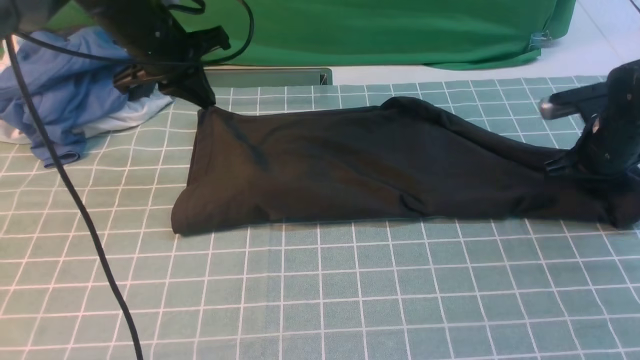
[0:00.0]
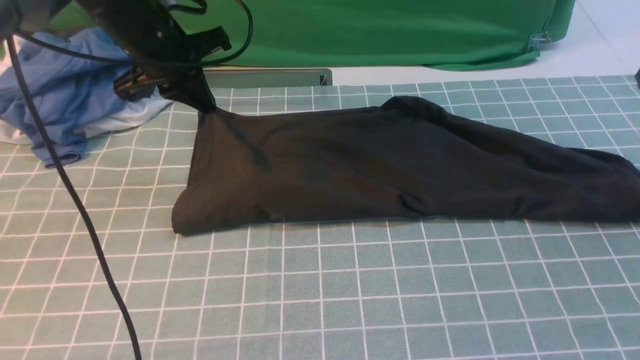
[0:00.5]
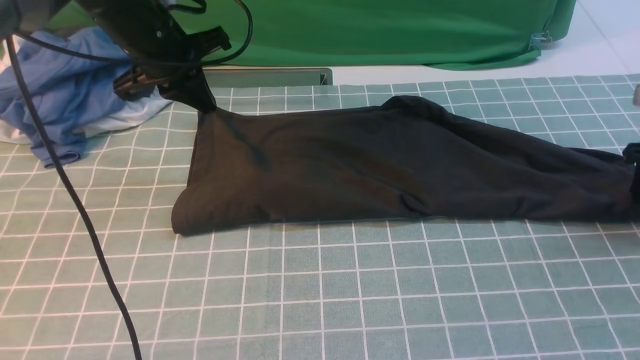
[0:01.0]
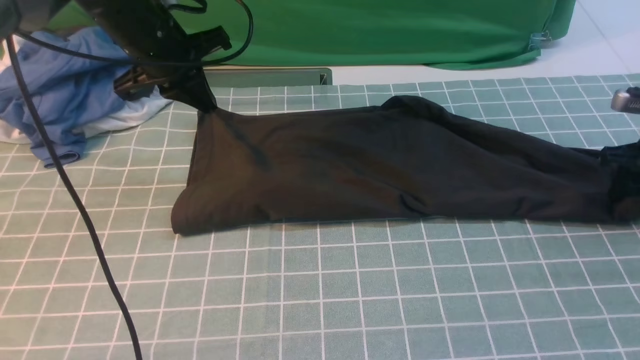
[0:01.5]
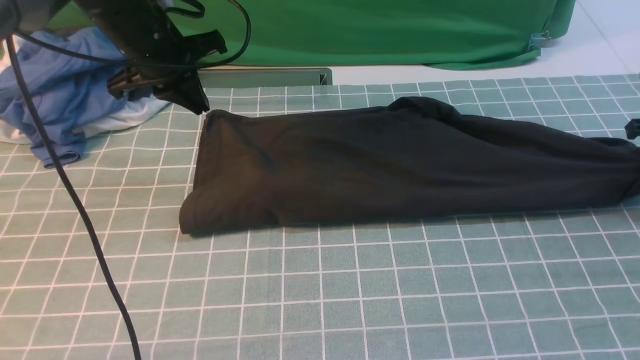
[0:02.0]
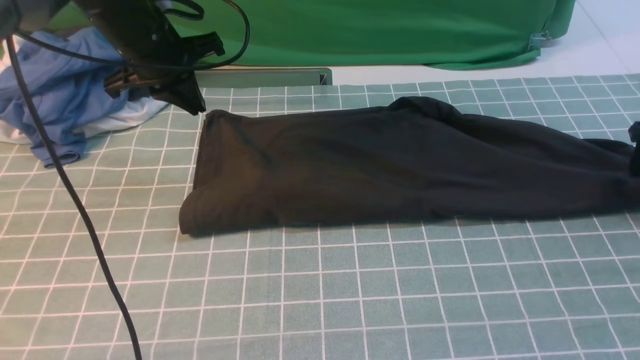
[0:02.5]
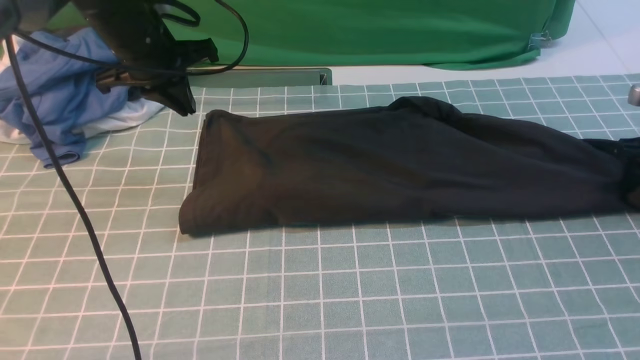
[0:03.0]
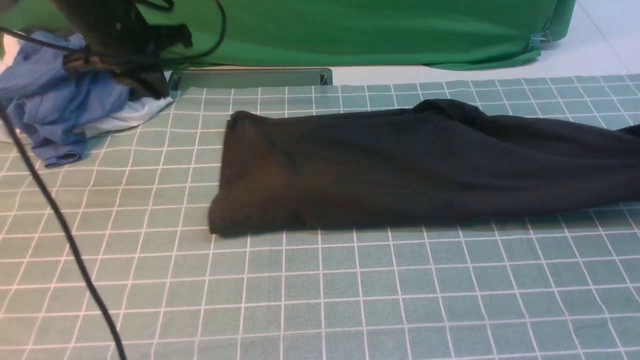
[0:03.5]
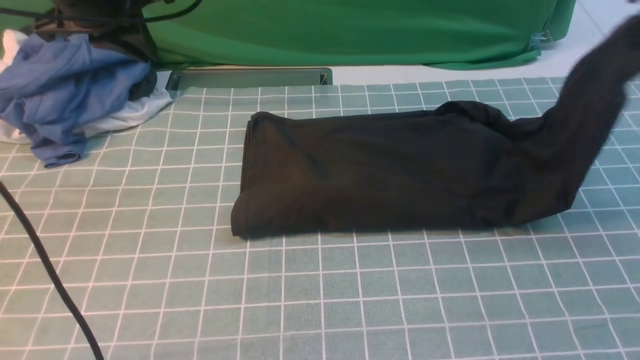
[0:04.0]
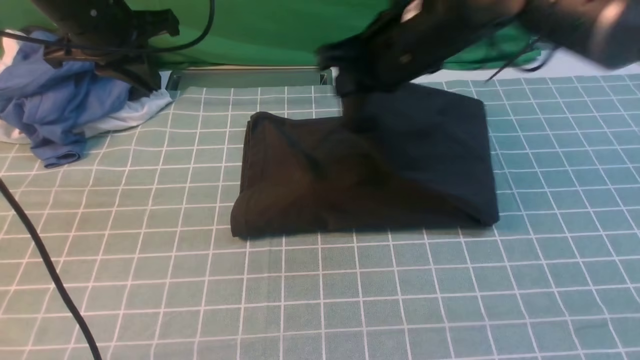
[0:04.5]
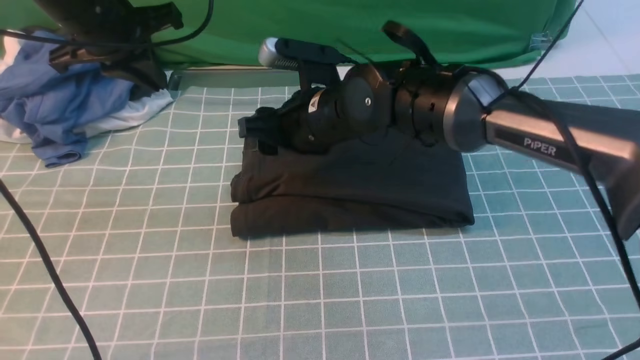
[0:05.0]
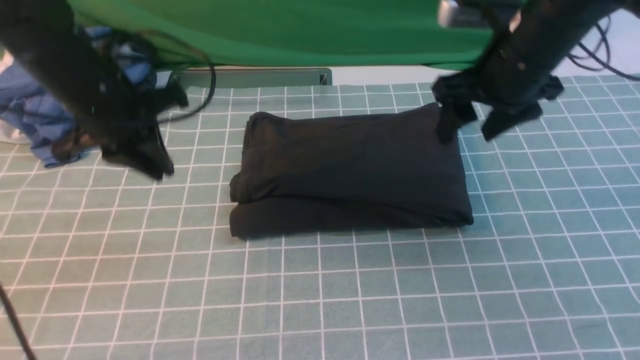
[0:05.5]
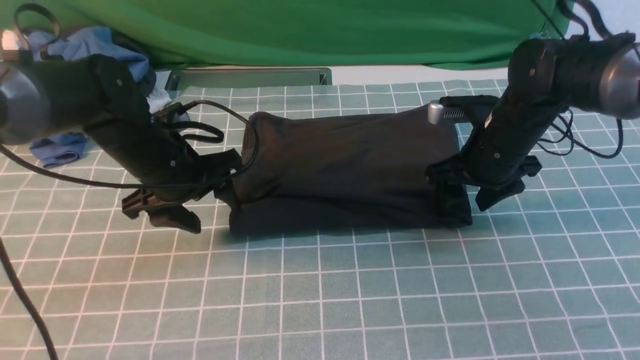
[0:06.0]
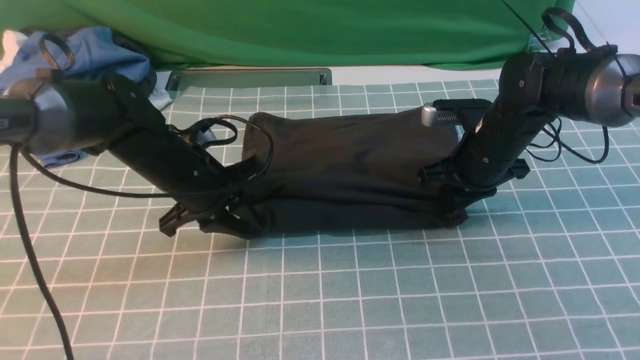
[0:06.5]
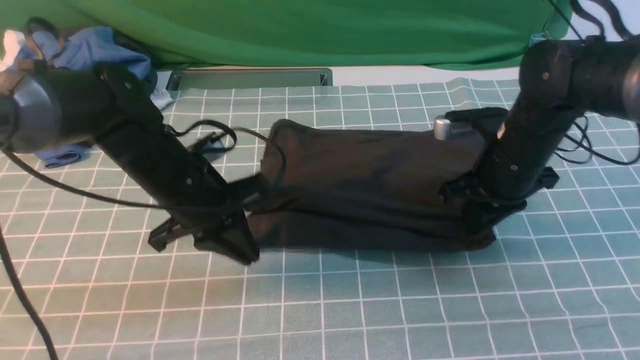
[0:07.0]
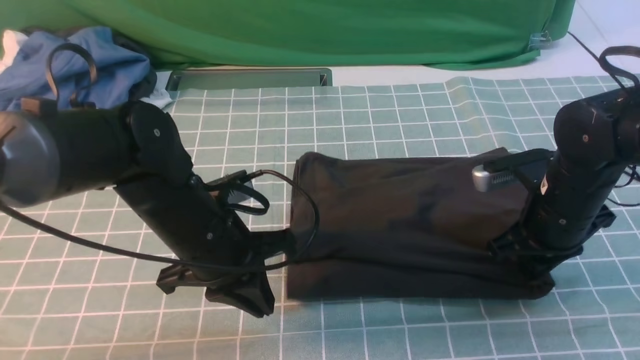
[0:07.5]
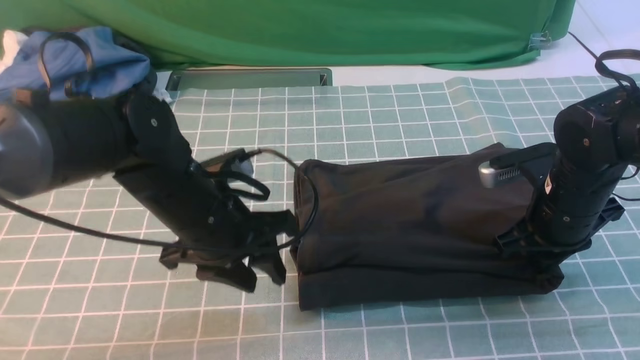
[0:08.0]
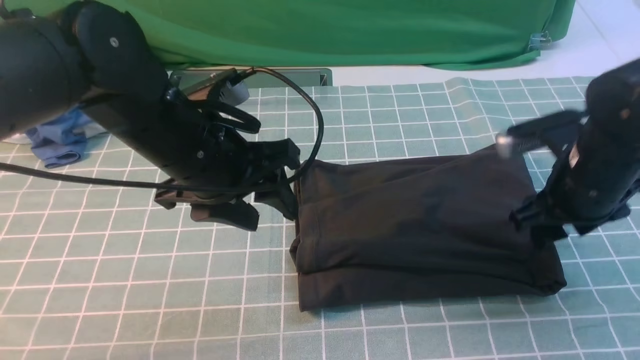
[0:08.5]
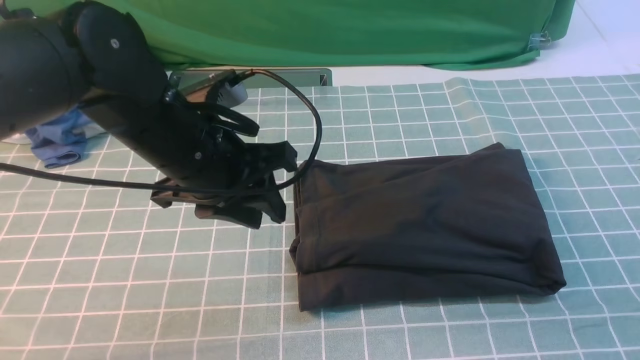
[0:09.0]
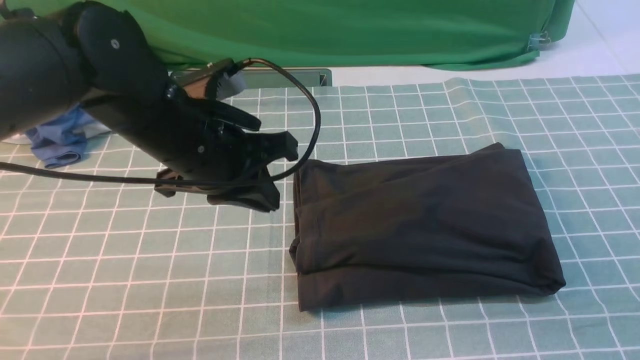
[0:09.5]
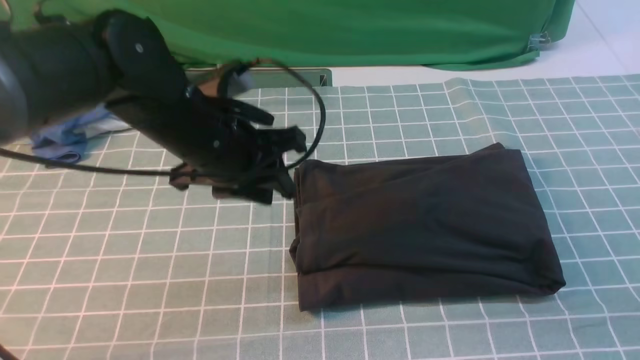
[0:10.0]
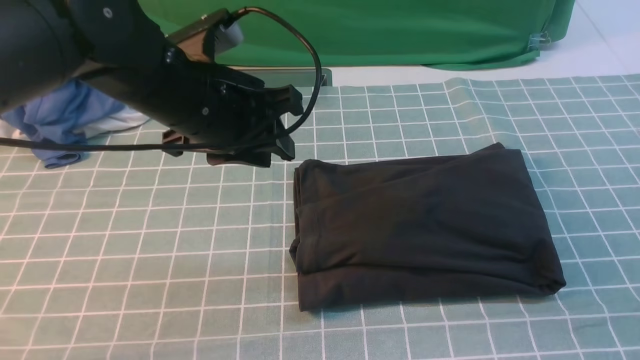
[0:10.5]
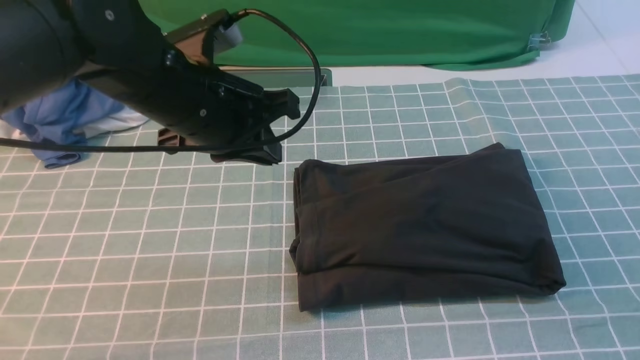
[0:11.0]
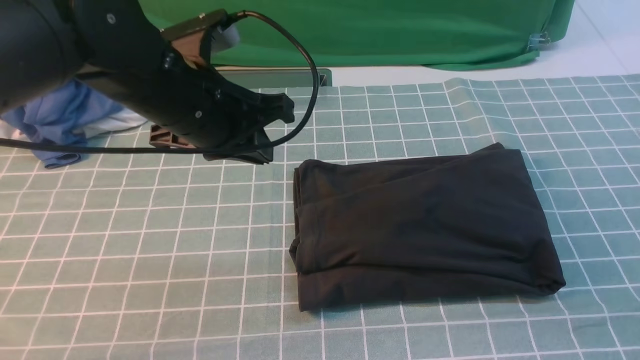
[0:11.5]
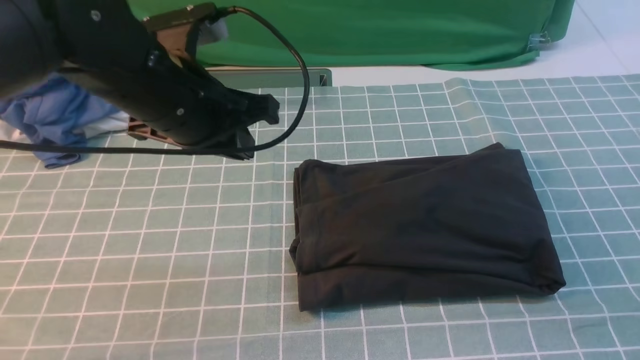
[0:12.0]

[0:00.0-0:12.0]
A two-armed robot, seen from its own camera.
Step, 0:00.0 to 0:03.0: use the right arm to clamp the right edge of the fabric.
Step, 0:03.5 to 0:05.0: use the right arm to drag the right edge of the fabric to the left and folds it over the left edge.
0:00.0 to 0:02.0: The right gripper moves to the right, some 10 cm, and opens.
0:02.0 to 0:04.0: The left gripper is displaced upward by about 5 cm; the right gripper shifts some 20 cm upward and to the left, and opens, then closes again.
0:04.0 to 0:06.0: The right gripper shifts about 20 cm downward and to the left, and opens up. The left gripper goes roughly 15 cm downward and backward, and opens up.
0:06.0 to 0:08.0: The right gripper is displaced backward by some 10 cm, and closes. Meanwhile the left gripper is displaced backward and to the right by some 10 cm, and closes its fingers.
0:08.0 to 0:10.0: The right gripper travels backward and upward by roughly 35 cm, and opens, then closes once more. Meanwhile the left gripper heads upward, covering approximately 5 cm, and closes, then reopens.
0:10.0 to 0:12.0: The left gripper heads upward, covering about 5 cm, and closes. The right gripper shifts approximately 15 cm downward.

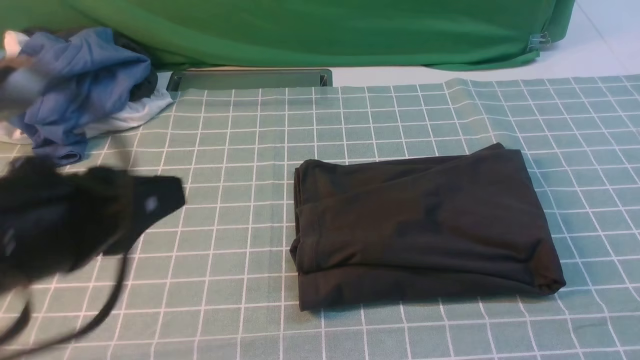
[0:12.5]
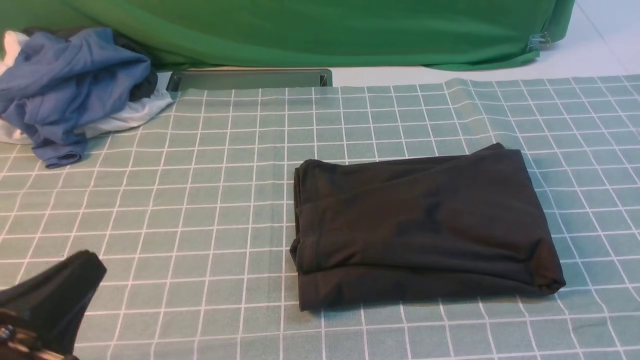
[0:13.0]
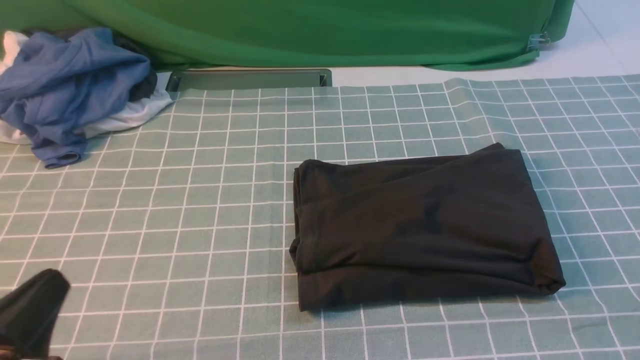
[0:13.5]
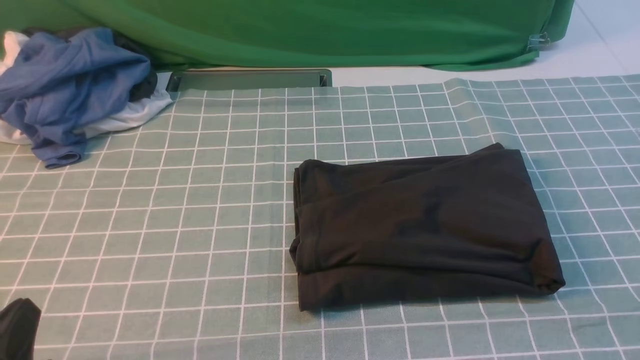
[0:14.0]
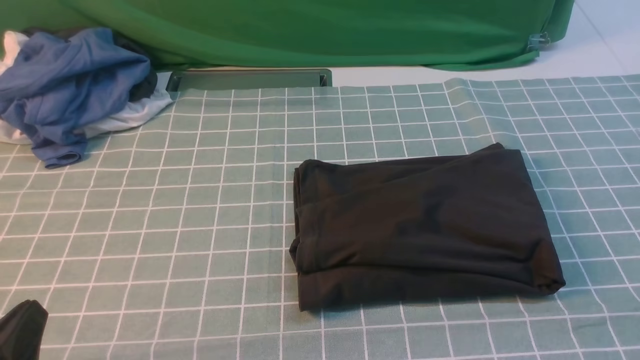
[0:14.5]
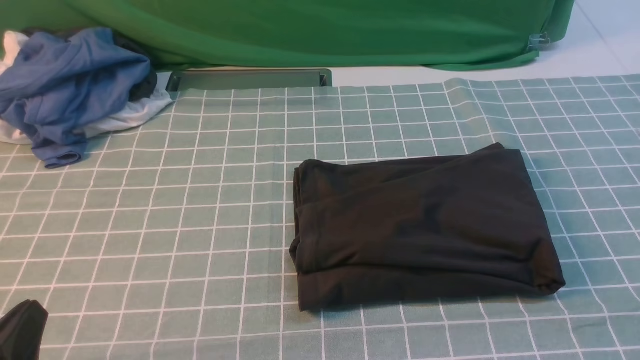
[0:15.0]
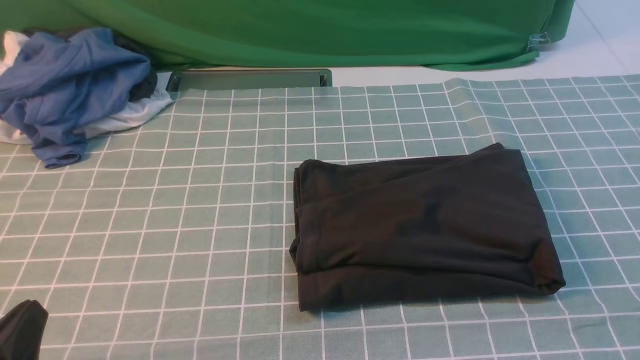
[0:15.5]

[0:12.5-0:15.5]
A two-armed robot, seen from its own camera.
0:12.5 to 0:14.0: The left gripper moves downward, backward and to the left, some 20 cm.
0:14.0 to 0:15.5: Both grippers stay about where they are.

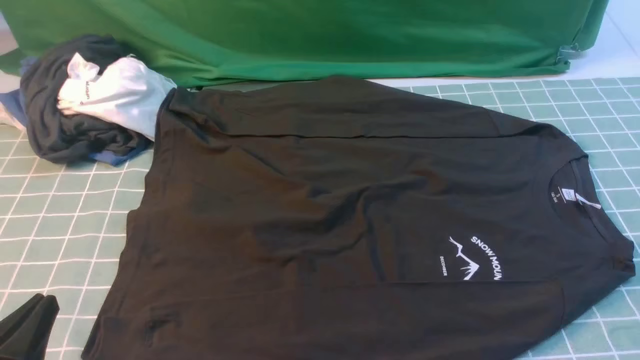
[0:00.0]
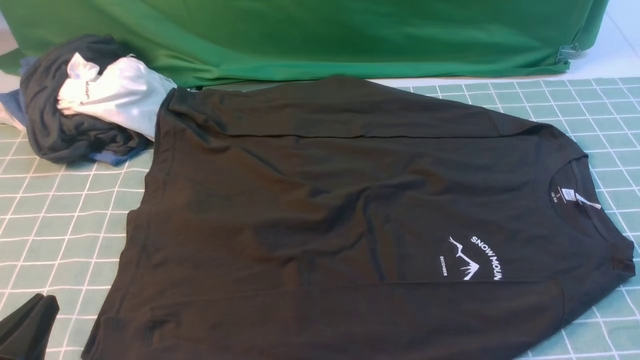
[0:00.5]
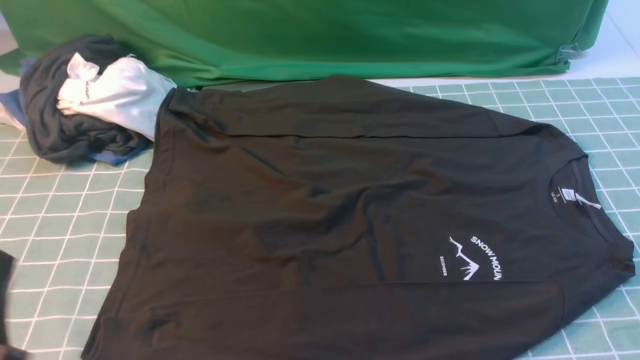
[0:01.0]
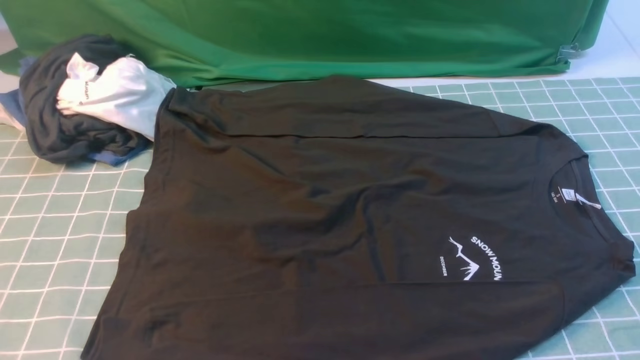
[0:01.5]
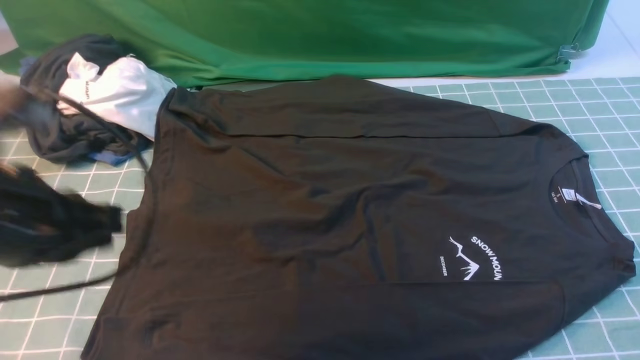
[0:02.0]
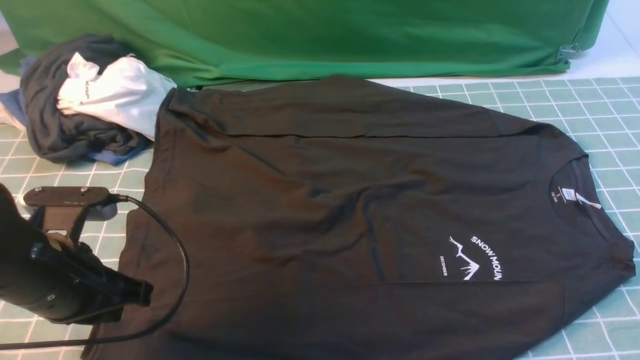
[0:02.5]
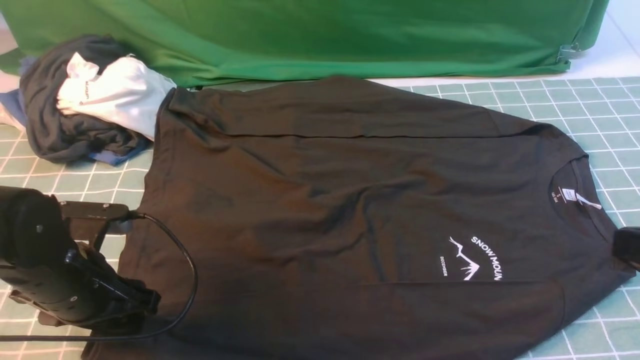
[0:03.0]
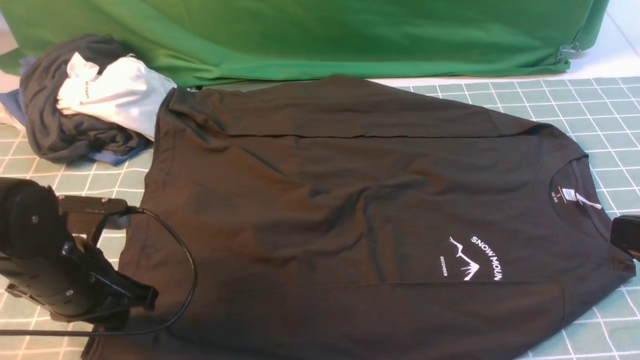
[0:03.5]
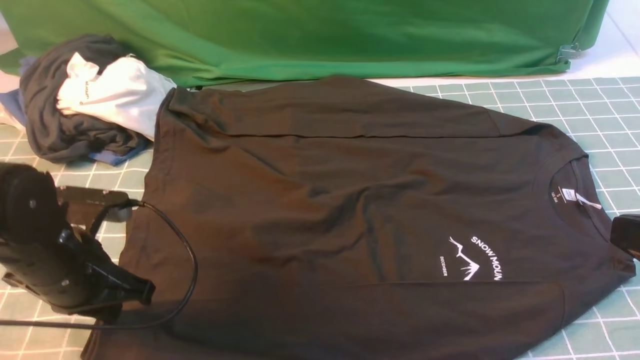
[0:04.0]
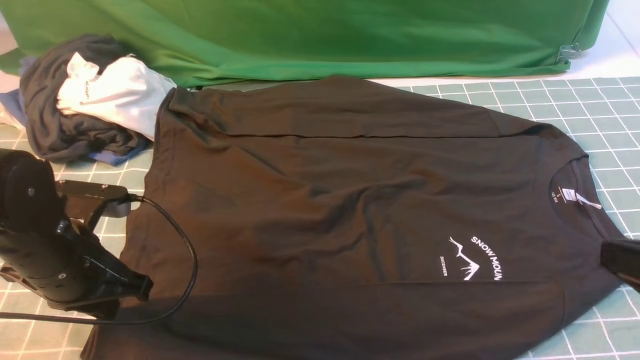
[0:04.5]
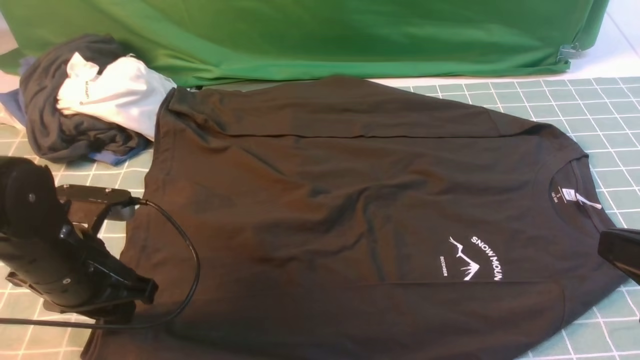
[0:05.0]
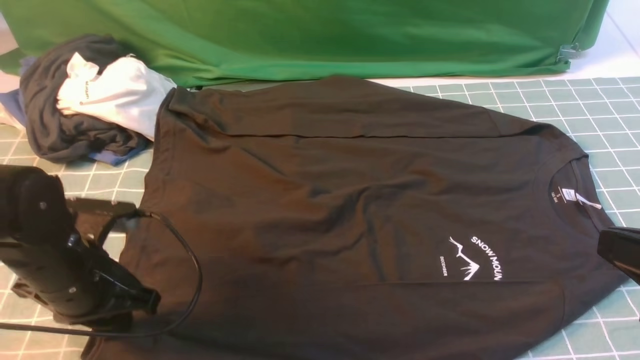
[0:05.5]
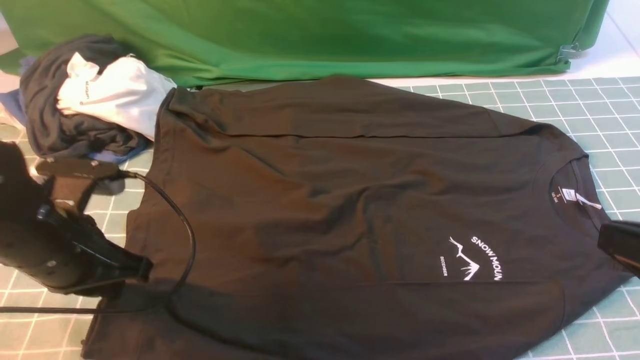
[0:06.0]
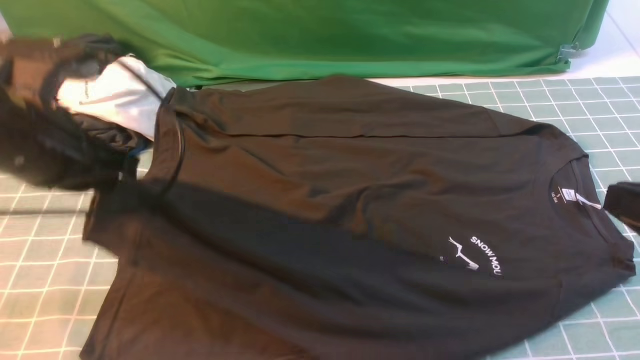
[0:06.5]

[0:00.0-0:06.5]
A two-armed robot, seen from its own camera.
Step, 0:00.0 to 0:06.0: use the left arm to clamp the cuff closest to it.
0:00.0 to 0:02.0: The left gripper heads forward and upward, covering some 15 cm.
0:02.0 to 0:04.5: The right gripper travels to the left, upward and forward by roughly 10 cm, and closes its fingers. Meanwhile the left gripper travels downward and forward by some 10 cm, and opens, then closes once more.
0:04.5 to 0:06.5: The left gripper moves upward, some 10 cm, and opens, then closes again.
